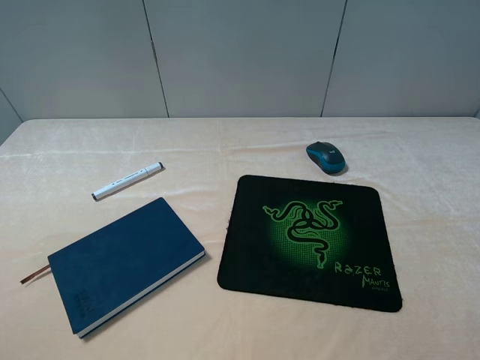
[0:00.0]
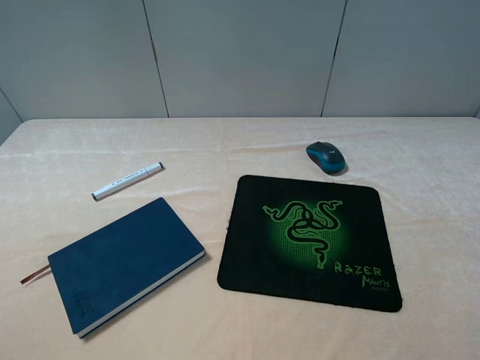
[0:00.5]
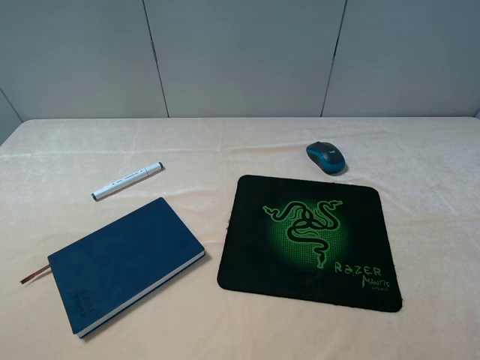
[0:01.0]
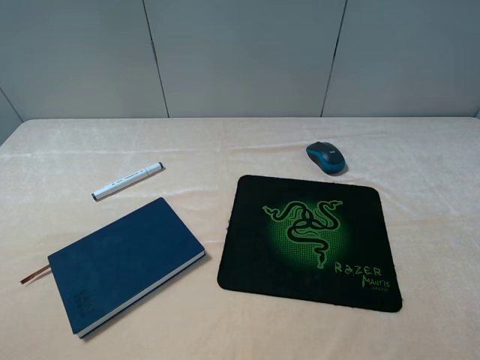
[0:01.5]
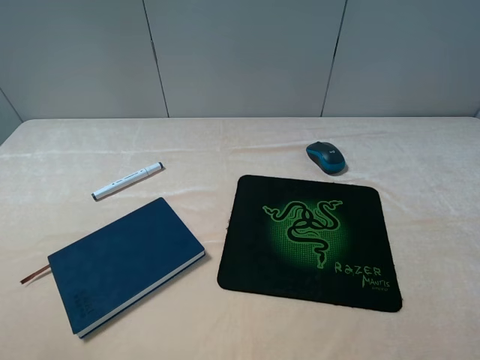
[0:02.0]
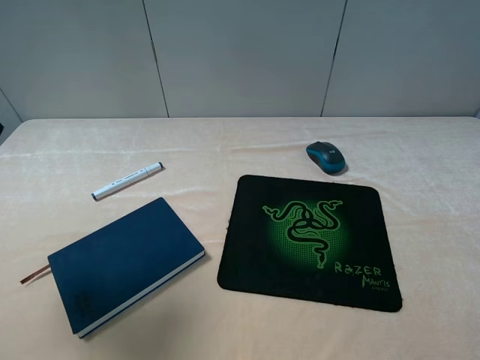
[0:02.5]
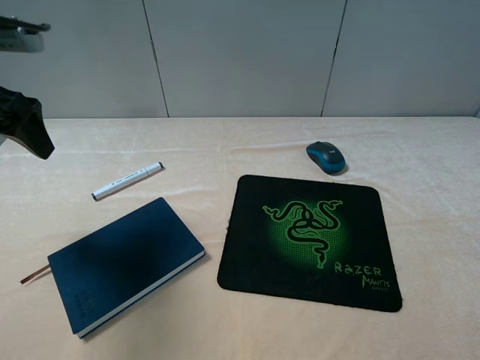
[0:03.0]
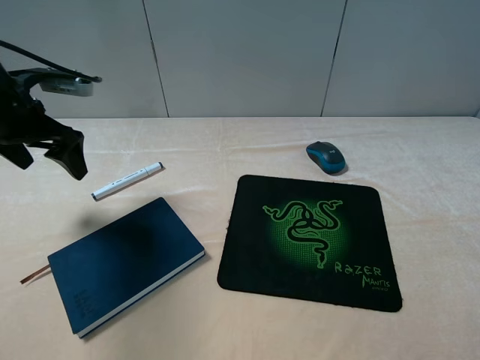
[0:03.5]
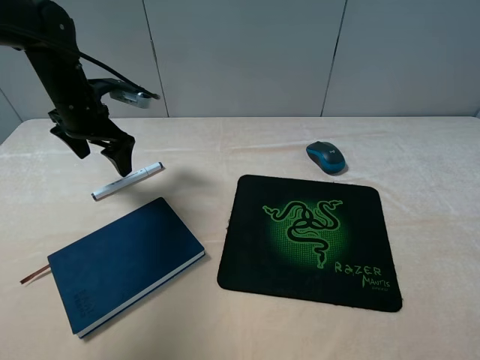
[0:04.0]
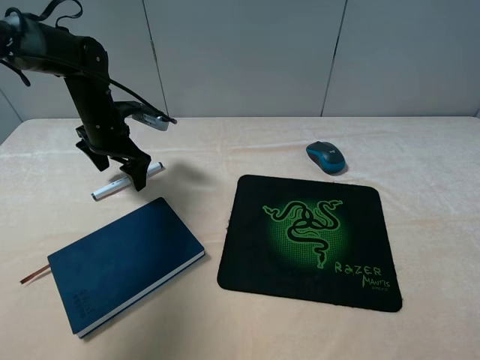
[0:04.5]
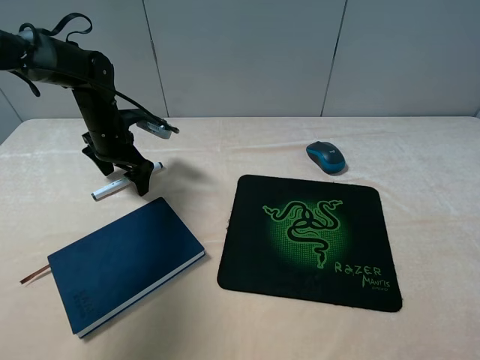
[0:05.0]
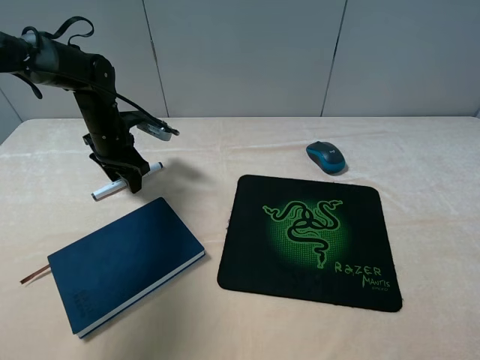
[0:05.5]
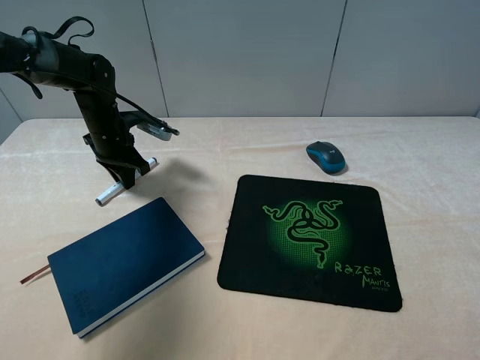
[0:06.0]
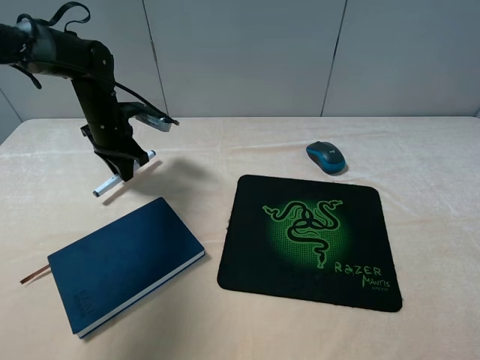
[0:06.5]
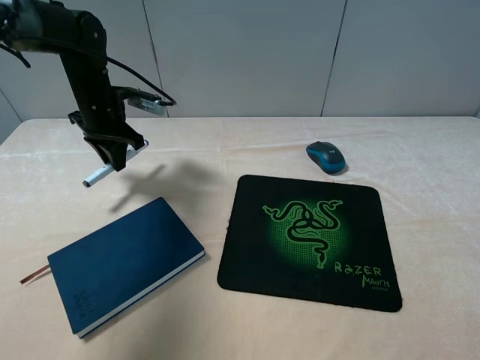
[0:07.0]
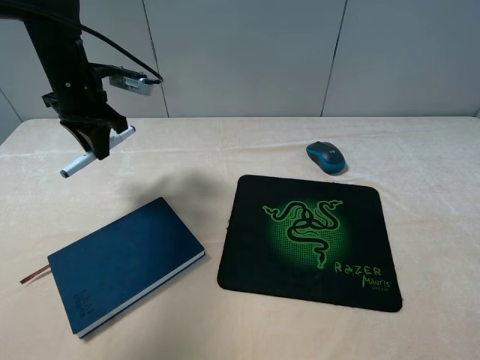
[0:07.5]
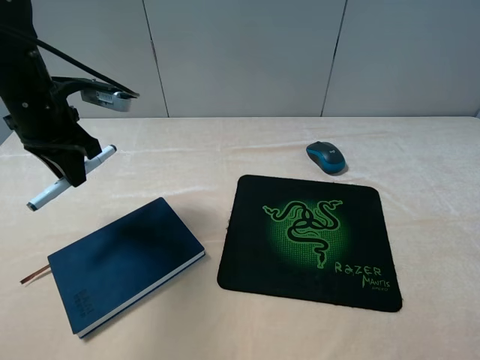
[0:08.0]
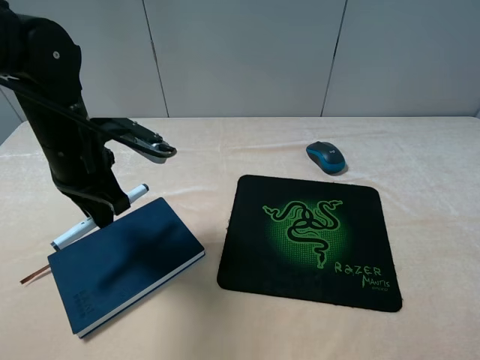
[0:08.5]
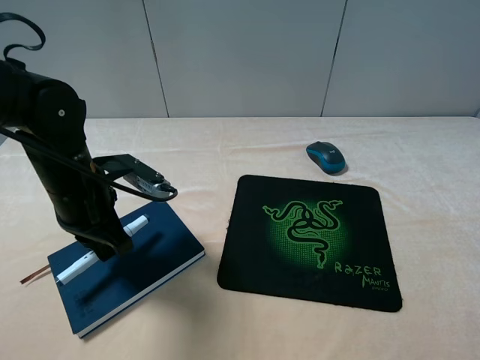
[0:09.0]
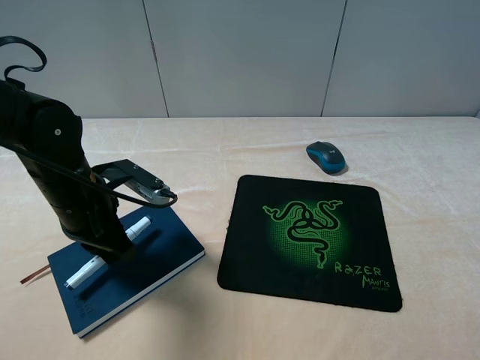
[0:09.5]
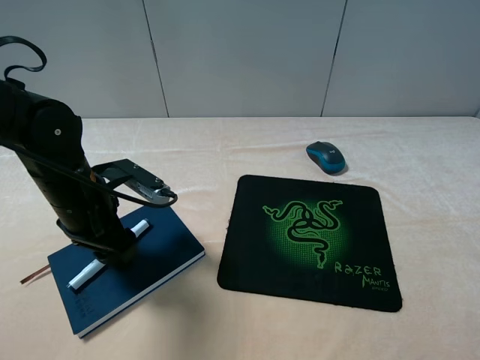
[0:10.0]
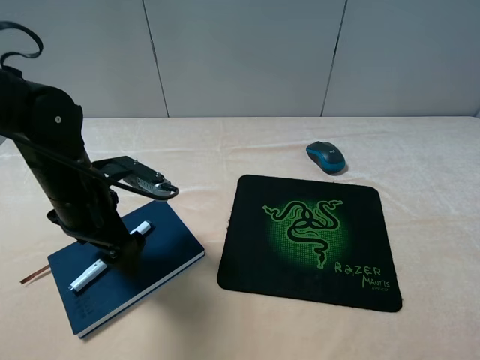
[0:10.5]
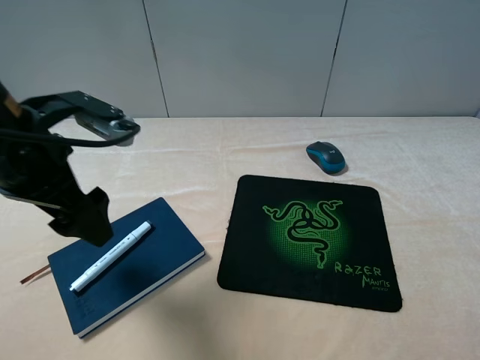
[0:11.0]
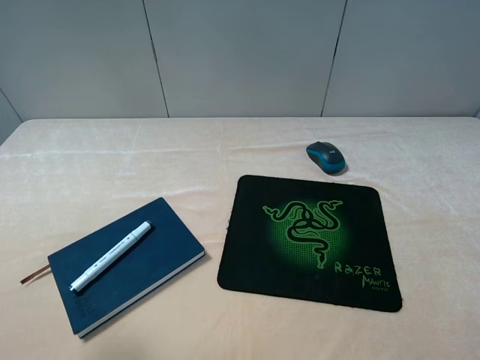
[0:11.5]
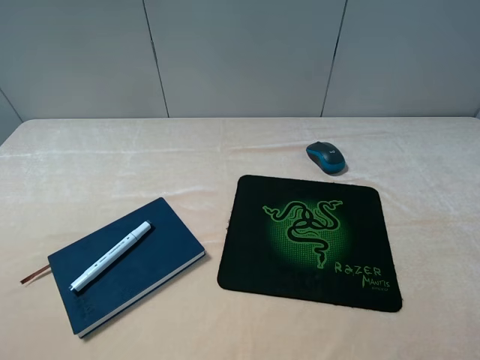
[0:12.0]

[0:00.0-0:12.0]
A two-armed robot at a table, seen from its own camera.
Step, 0:00.0 to 0:05.5: Grasp the marker with the left gripper.
Step, 0:06.0 to 0:10.0: Place the marker on the notebook with the left gripper.
0:02.0 to 0:04.0: The left gripper moves forward and downward, roughly 35 cm.
0:04.0 to 0:06.0: The left gripper is displaced downward by approximately 5 cm, and closes its fingers.
0:06.0 to 0:08.0: The left gripper heads upward and backward, covering approximately 15 cm.
0:08.0 to 0:10.0: The left gripper goes roughly 15 cm downward, backward and to the right, and opens.
0:10.0 to 0:12.0: The left gripper is displaced backward, upward and to the left by roughly 35 cm, and opens.

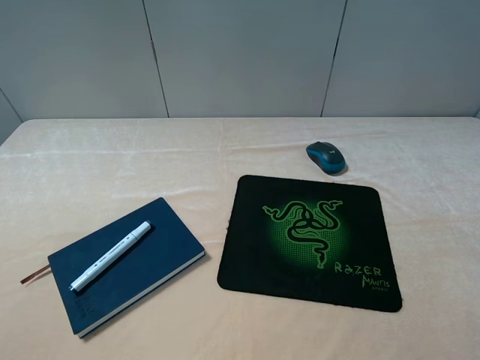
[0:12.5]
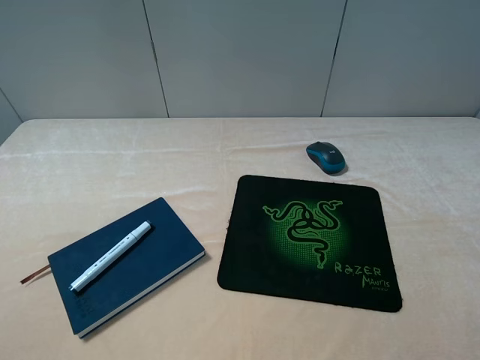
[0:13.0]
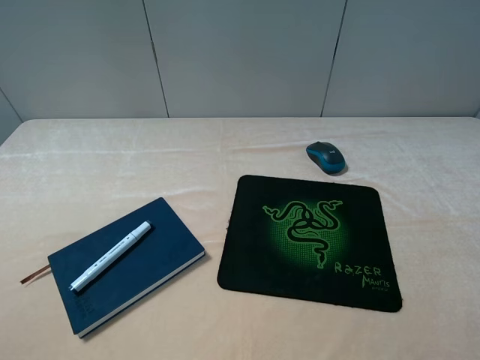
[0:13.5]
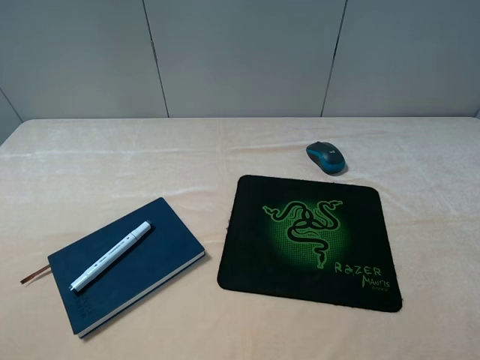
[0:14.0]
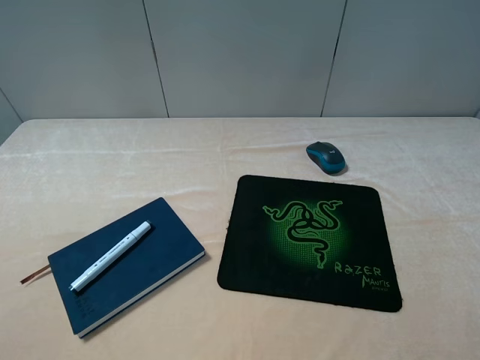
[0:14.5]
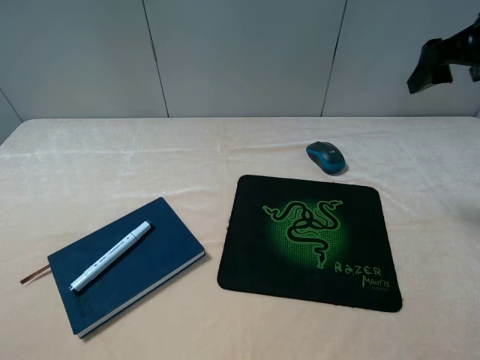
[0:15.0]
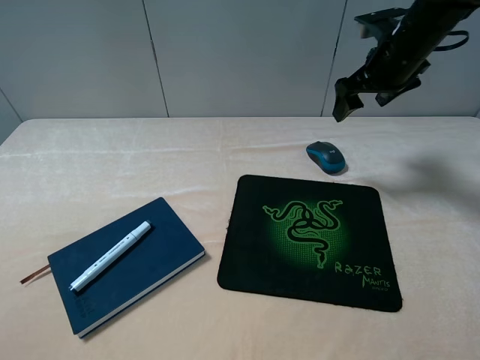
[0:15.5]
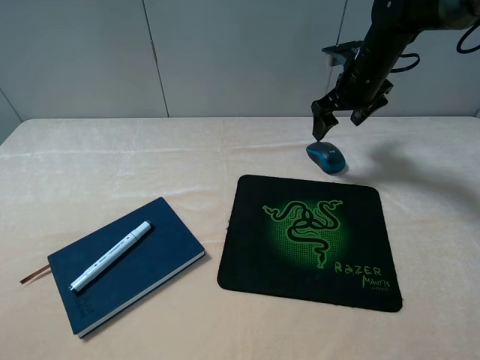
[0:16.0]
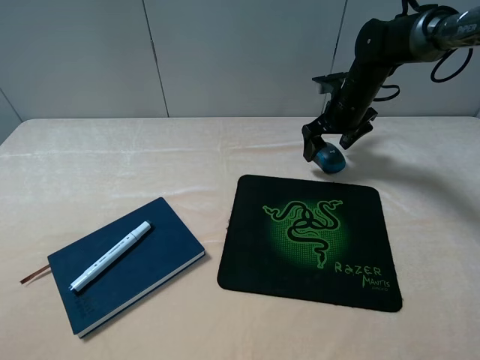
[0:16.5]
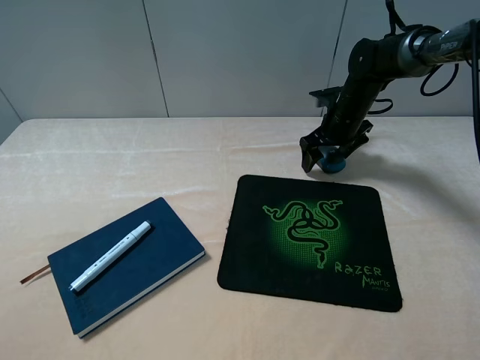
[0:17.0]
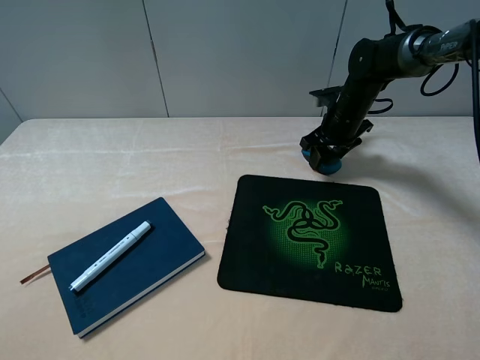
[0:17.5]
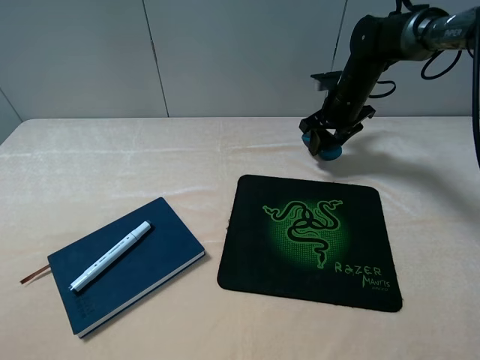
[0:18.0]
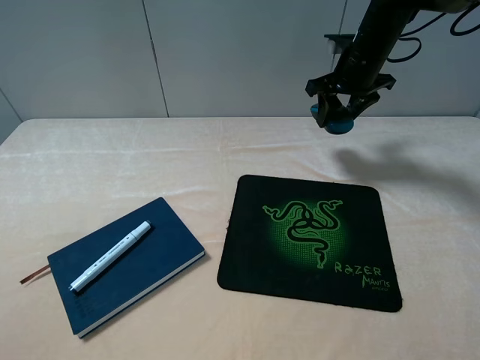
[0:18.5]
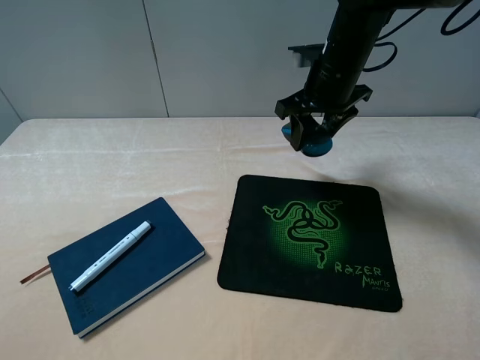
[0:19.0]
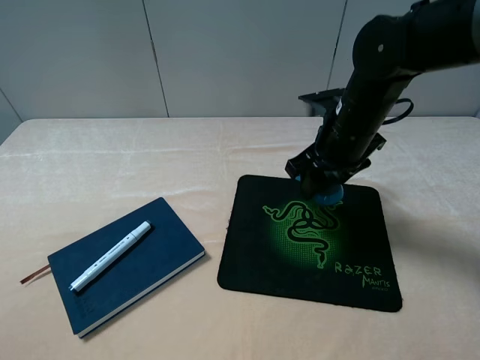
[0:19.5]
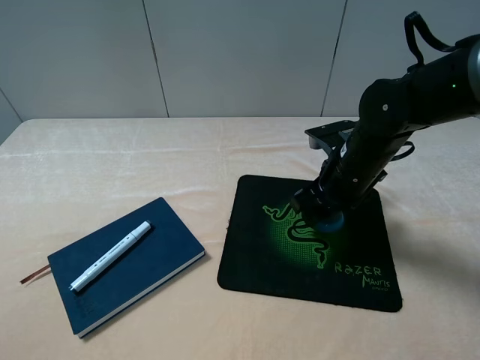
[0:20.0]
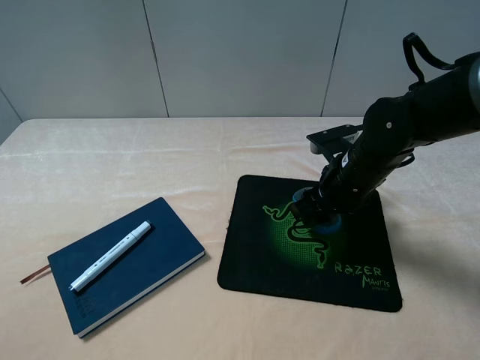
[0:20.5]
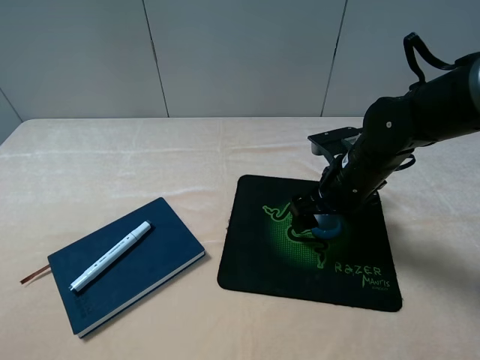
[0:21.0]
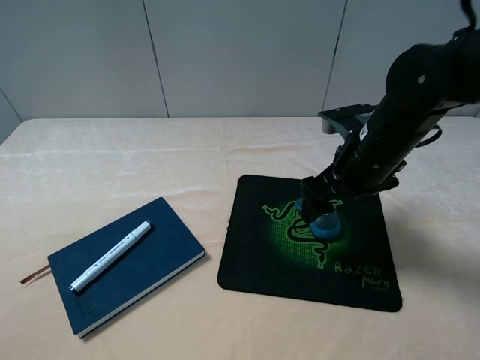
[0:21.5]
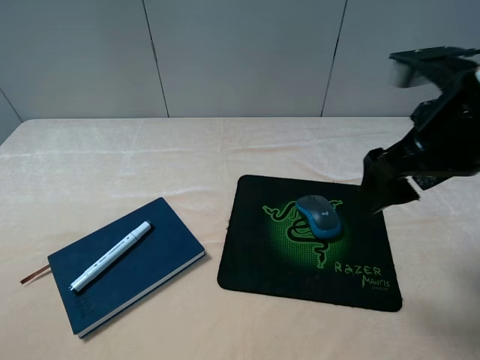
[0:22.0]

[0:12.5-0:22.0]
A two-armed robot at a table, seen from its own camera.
Step, 0:12.5 to 0:17.5: Grasp the mouse with the right gripper.
Step, 0:18.0 to 0:21.0: Place the mouse on the mouse pad with the right gripper.
0:14.5 to 0:16.5: The right gripper shifts roughly 40 cm forward and downward.
0:16.5 to 0:18.0: The right gripper closes up.
0:18.0 to 0:20.0: The right gripper moves backward, about 20 cm.
0:20.0 to 0:22.0: The right gripper moves upward and backward, about 20 cm, and opens up.

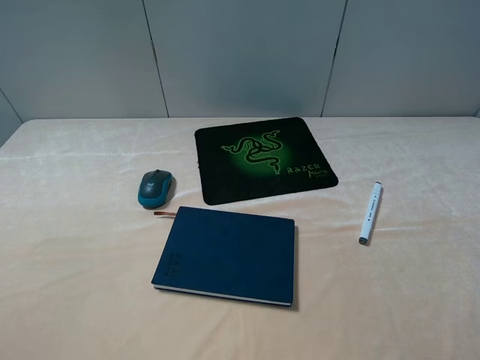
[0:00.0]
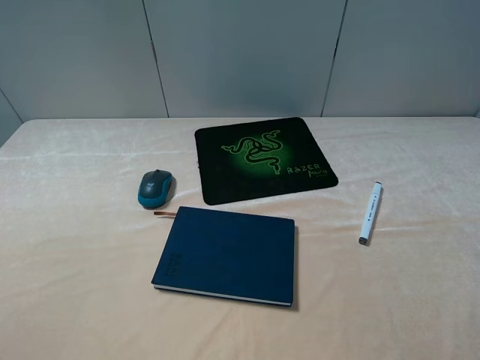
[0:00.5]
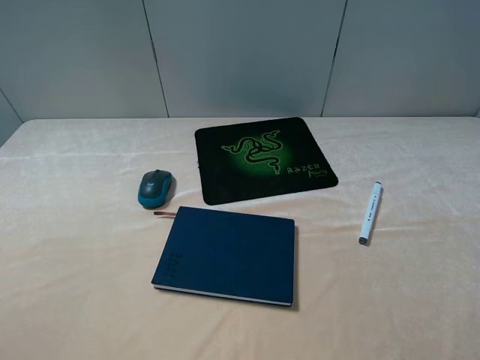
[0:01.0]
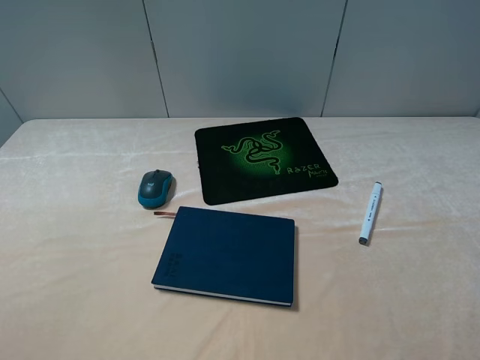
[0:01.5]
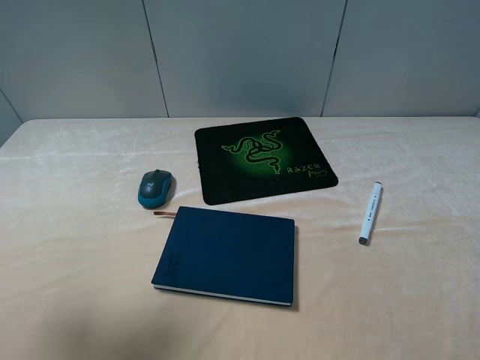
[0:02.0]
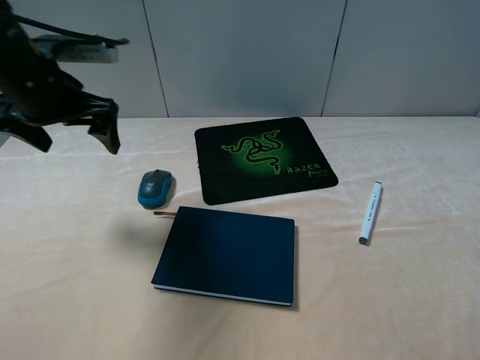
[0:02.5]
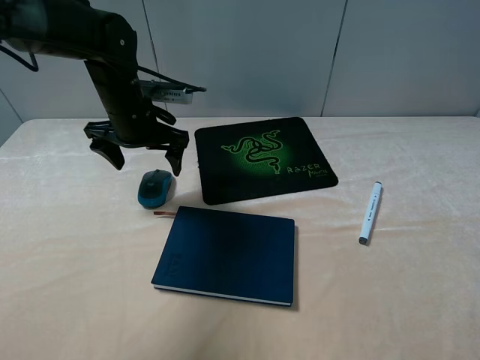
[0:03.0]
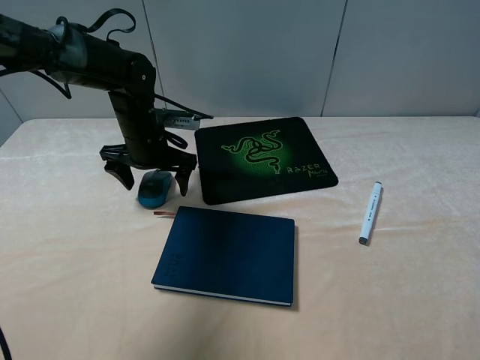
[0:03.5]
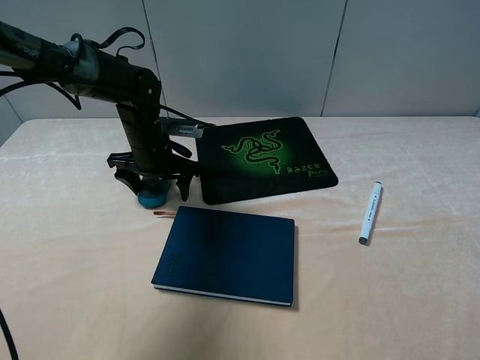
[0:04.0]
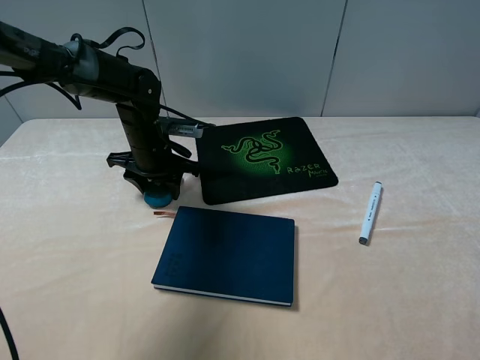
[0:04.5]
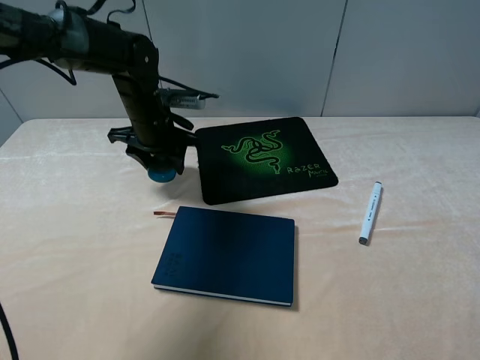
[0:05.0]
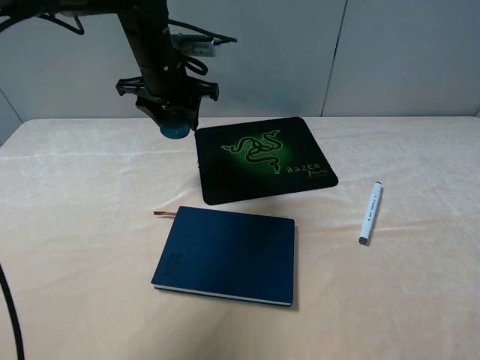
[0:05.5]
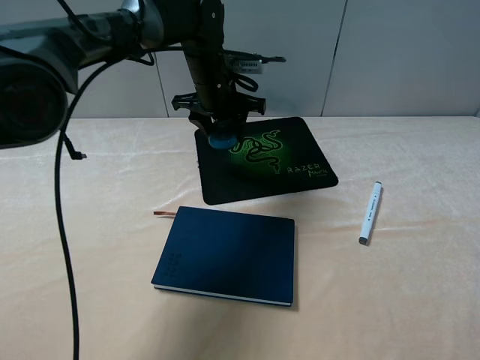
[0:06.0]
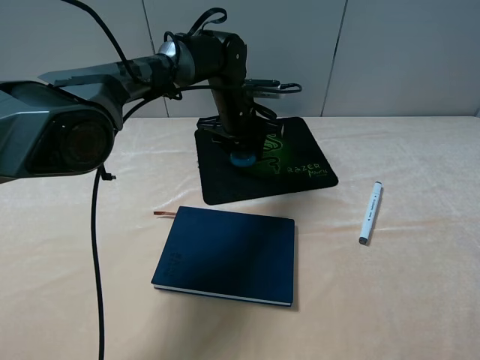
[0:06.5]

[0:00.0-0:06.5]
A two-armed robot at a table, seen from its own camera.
Step, 0:00.0 to 0:04.5: Grasp the mouse with the left gripper.
0:00.0 to 0:02.0: The left gripper is displaced forward by roughly 15 cm.
0:02.0 to 0:04.5: The left gripper shifts some 35 cm forward, downward and to the right, and closes up.
0:04.5 to 0:06.5: The left gripper heads to the right and forward, covering some 15 cm.
